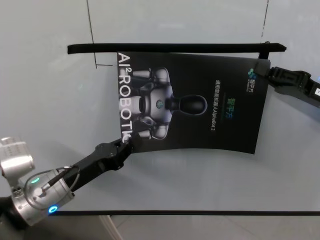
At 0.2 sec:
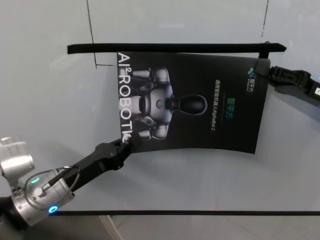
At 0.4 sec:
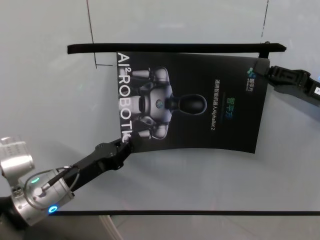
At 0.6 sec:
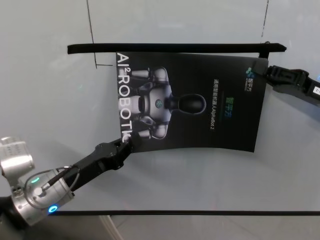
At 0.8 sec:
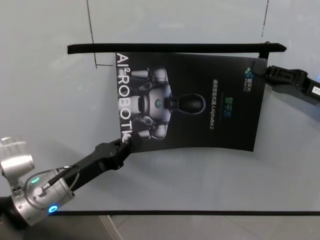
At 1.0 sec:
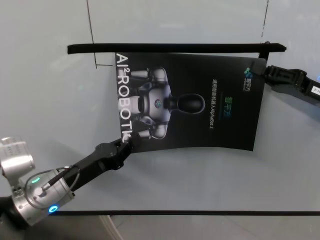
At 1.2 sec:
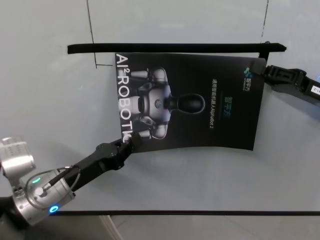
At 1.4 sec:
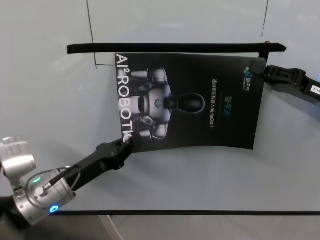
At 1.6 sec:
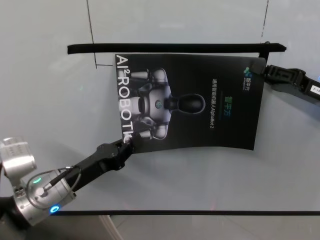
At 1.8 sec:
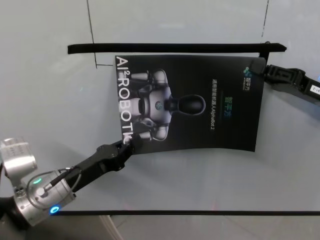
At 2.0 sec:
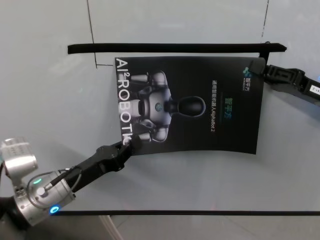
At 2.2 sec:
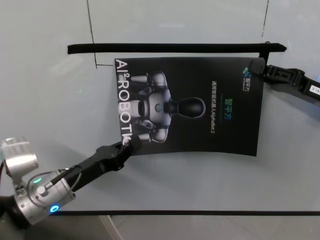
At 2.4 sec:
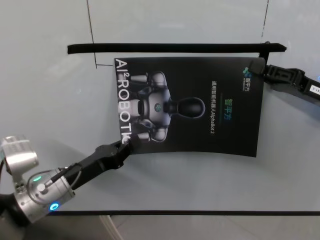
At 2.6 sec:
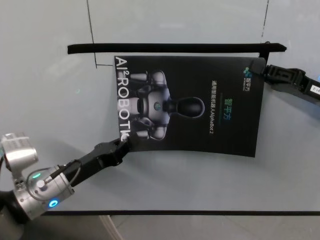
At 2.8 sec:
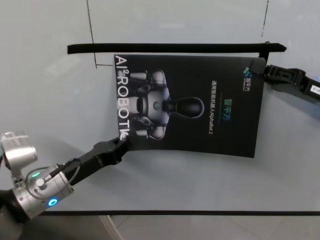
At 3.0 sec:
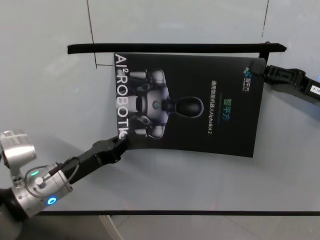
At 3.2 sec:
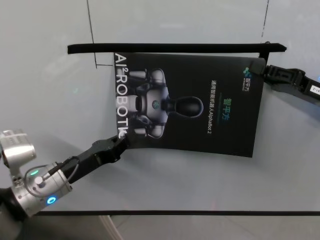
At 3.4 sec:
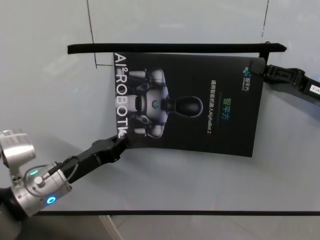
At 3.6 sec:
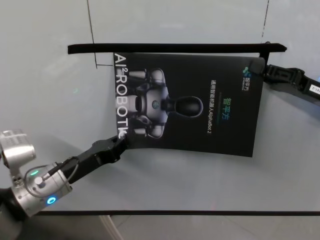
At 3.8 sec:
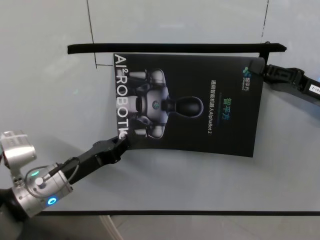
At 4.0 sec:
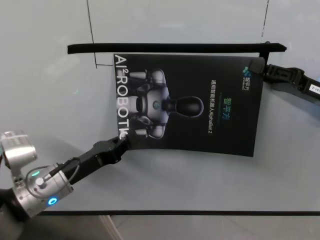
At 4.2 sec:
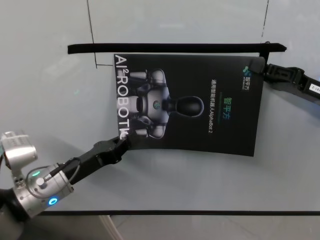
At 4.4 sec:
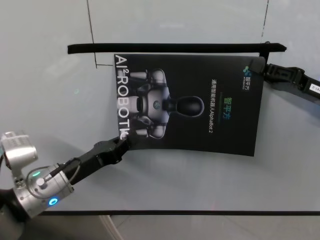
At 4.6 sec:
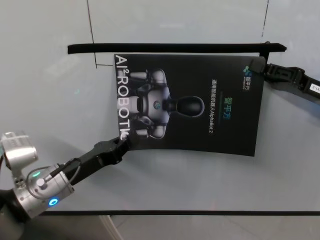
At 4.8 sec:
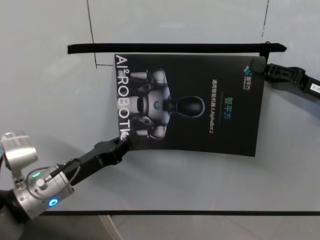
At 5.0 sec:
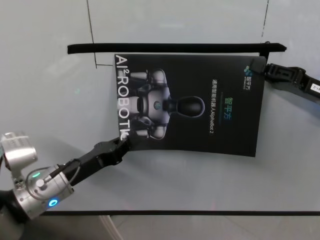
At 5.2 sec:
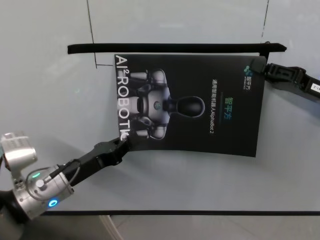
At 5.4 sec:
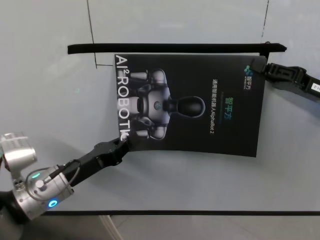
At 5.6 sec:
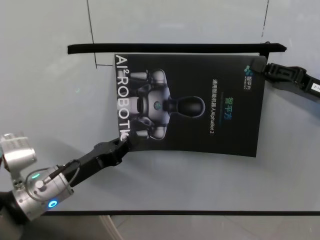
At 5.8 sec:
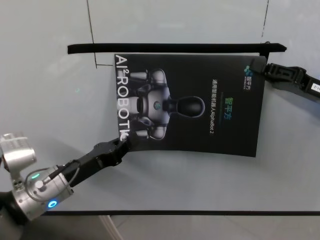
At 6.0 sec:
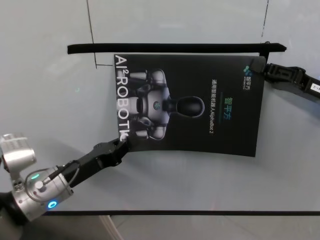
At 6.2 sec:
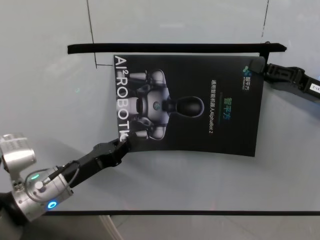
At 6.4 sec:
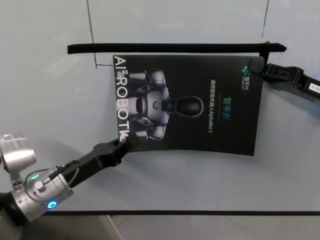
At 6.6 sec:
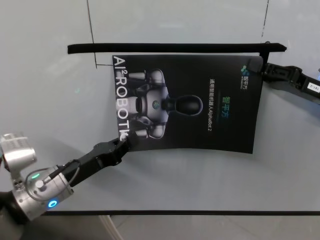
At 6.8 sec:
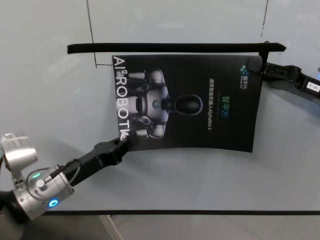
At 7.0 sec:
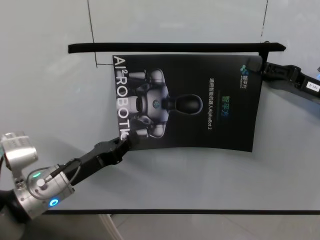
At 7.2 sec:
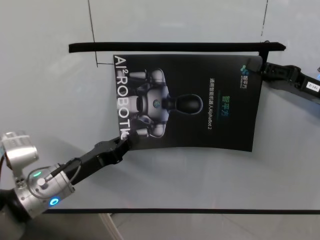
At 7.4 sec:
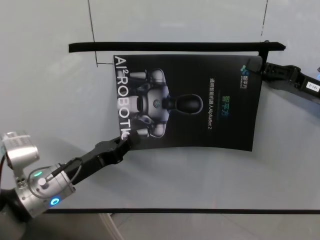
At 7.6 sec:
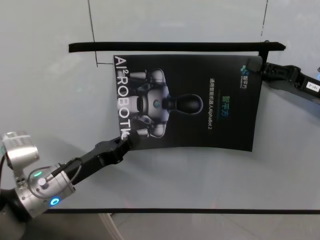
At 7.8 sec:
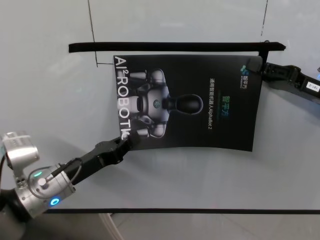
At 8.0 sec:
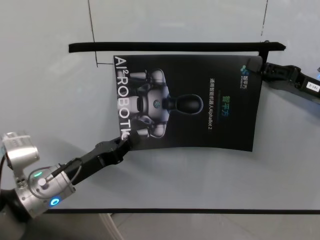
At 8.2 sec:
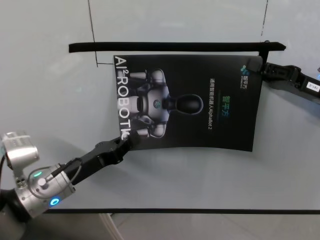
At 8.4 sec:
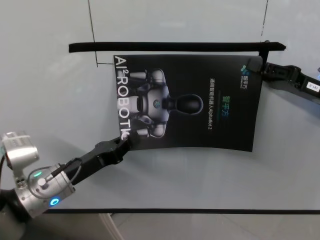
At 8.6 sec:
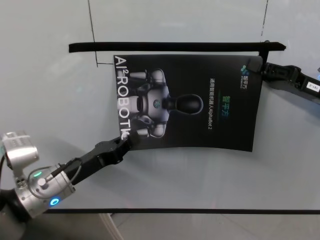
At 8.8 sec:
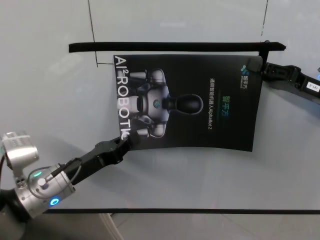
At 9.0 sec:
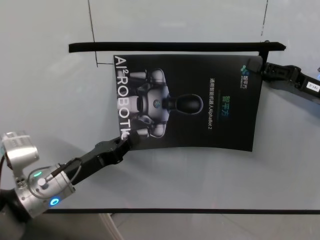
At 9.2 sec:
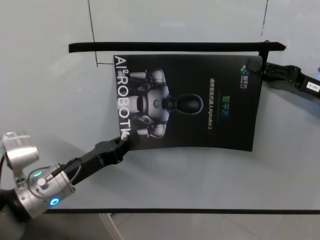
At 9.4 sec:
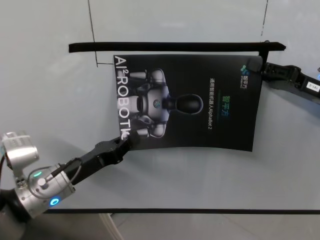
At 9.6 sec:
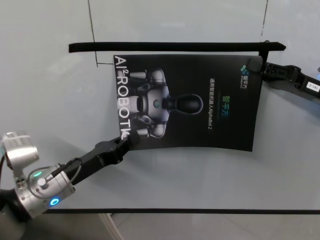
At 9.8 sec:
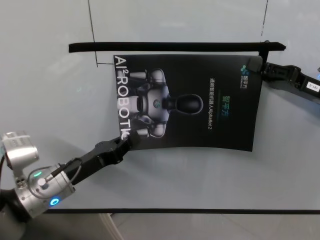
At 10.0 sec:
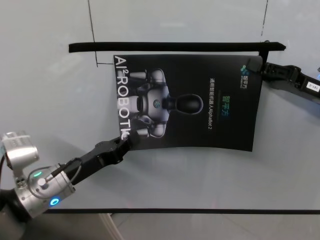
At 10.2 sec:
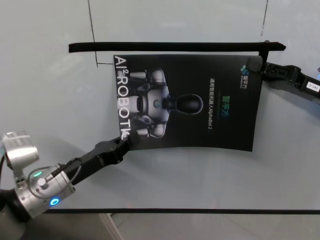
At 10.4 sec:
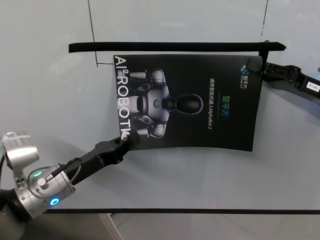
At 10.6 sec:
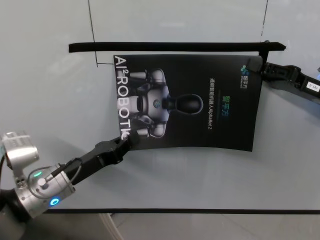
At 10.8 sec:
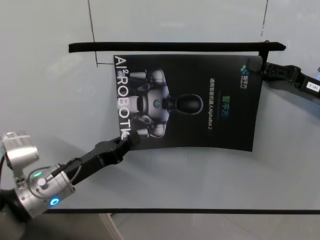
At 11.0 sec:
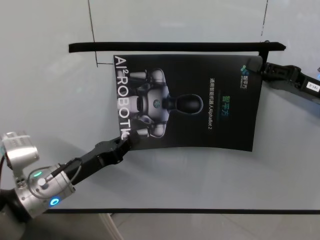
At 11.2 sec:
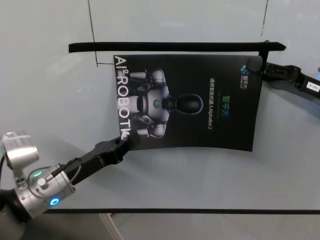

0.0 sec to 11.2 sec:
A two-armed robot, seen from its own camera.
Task of the whole recording: stick the poster on the table by hand.
Step, 0.0 sec to 4.6 sec: Stick the advertisement in the top-right corner area with both grippers.
